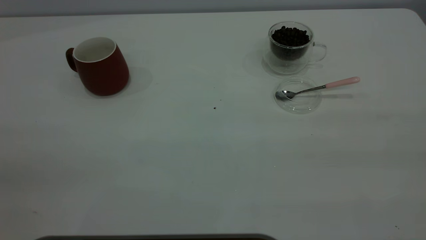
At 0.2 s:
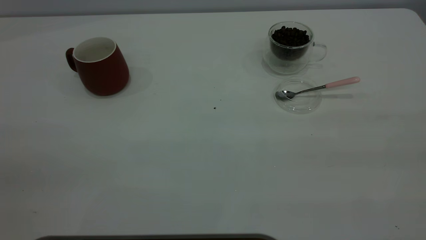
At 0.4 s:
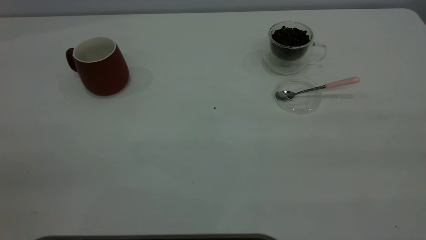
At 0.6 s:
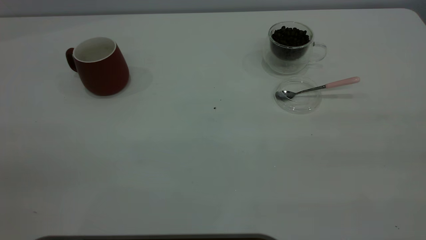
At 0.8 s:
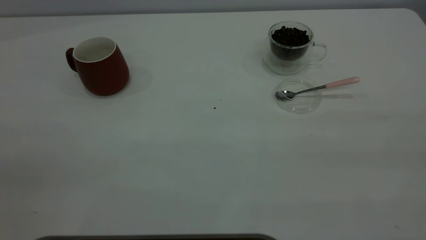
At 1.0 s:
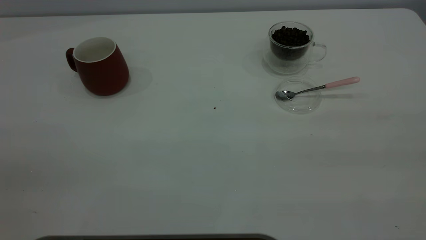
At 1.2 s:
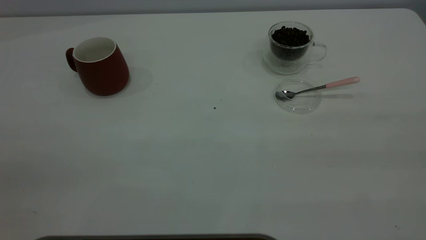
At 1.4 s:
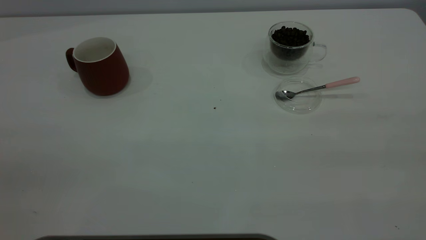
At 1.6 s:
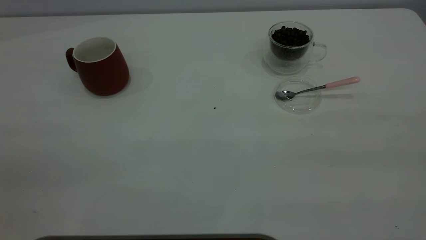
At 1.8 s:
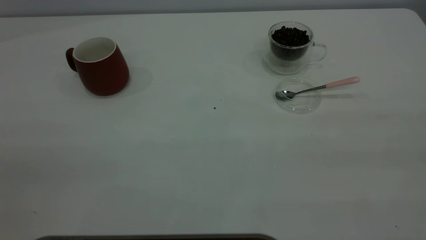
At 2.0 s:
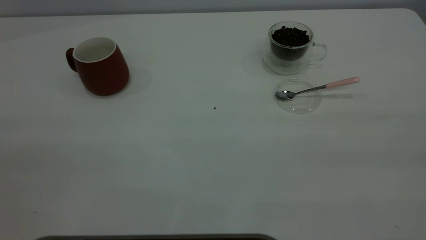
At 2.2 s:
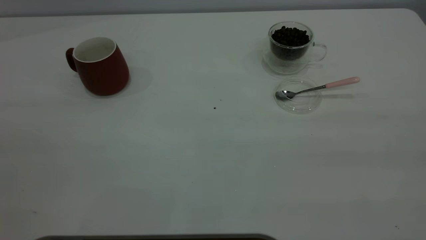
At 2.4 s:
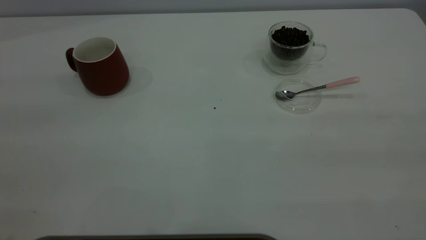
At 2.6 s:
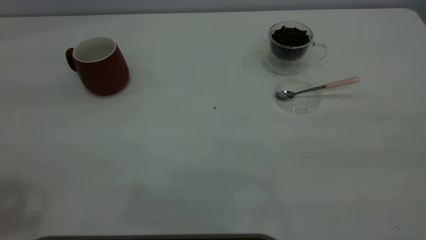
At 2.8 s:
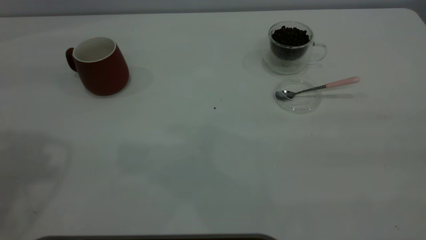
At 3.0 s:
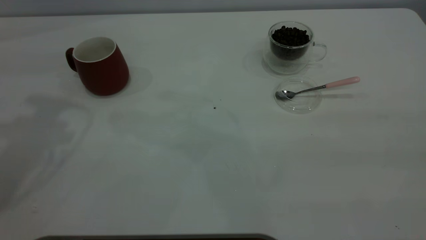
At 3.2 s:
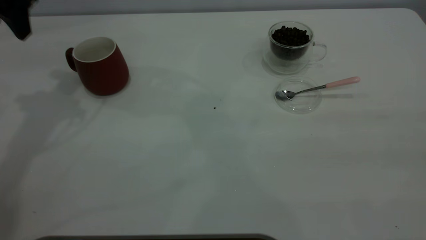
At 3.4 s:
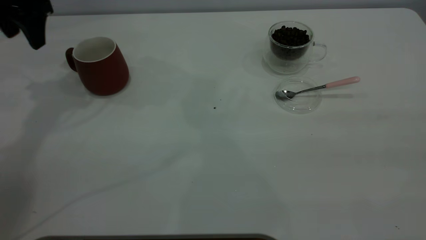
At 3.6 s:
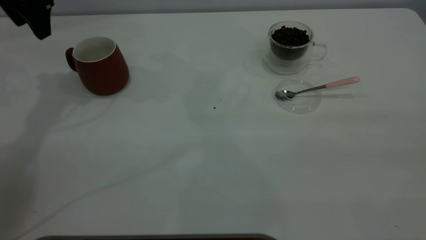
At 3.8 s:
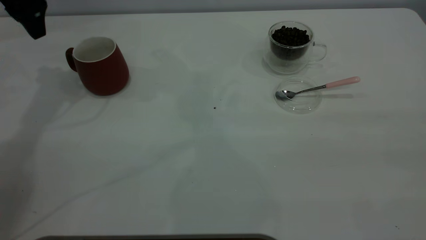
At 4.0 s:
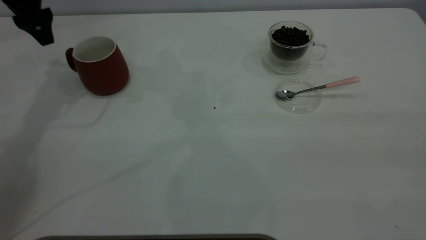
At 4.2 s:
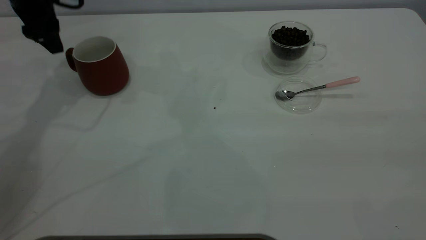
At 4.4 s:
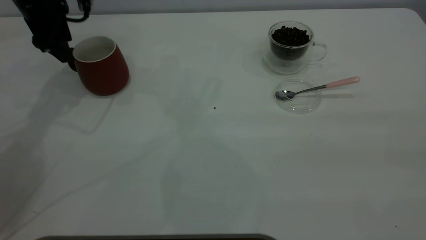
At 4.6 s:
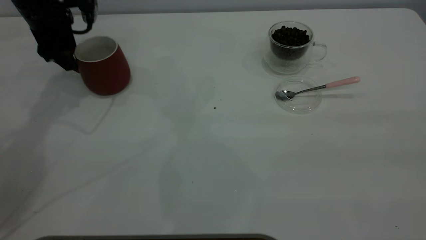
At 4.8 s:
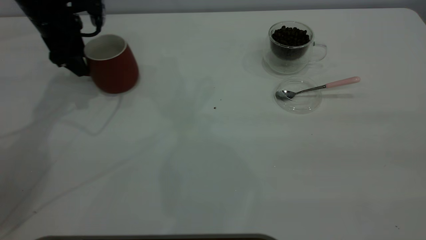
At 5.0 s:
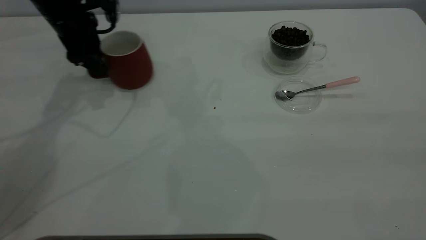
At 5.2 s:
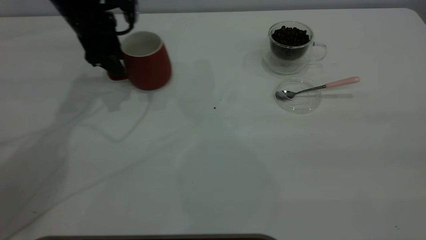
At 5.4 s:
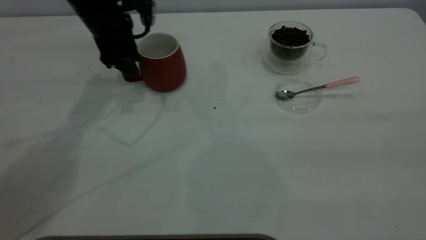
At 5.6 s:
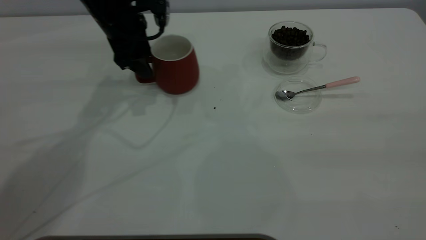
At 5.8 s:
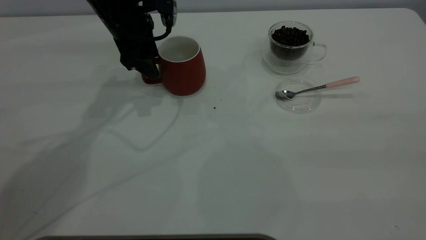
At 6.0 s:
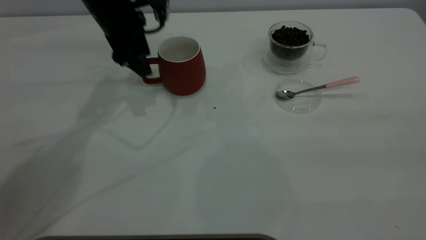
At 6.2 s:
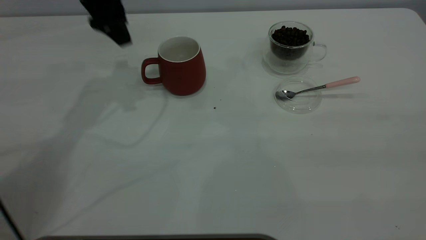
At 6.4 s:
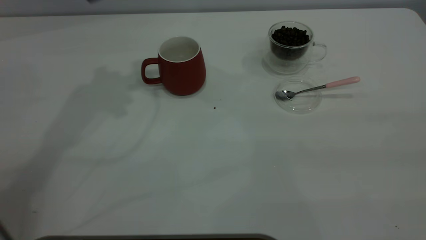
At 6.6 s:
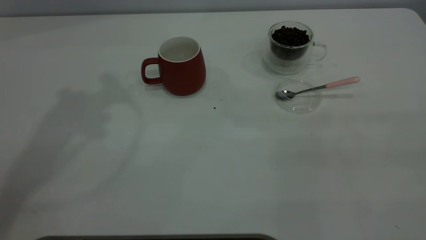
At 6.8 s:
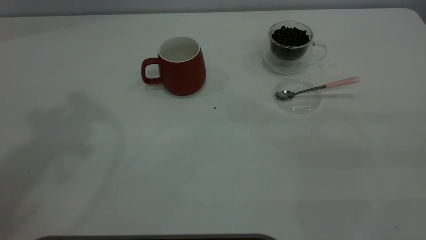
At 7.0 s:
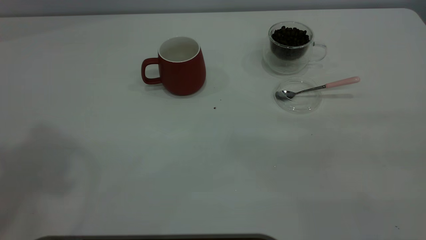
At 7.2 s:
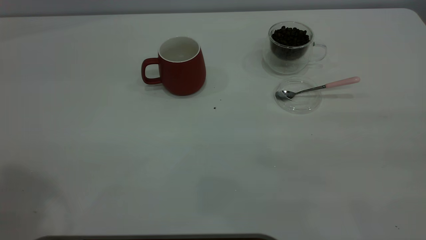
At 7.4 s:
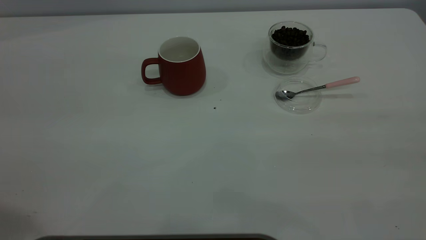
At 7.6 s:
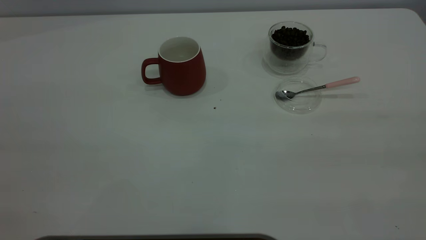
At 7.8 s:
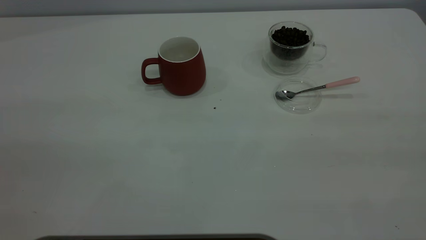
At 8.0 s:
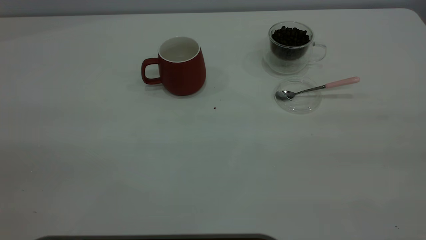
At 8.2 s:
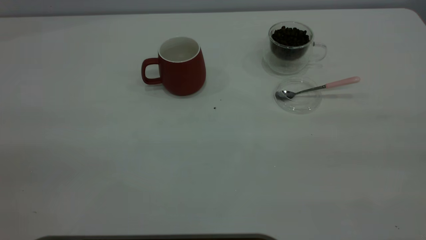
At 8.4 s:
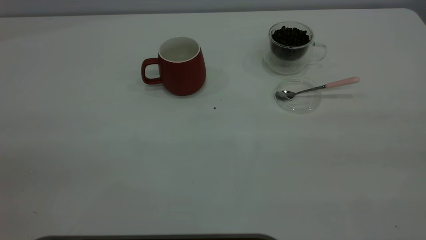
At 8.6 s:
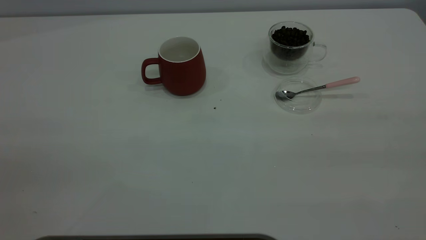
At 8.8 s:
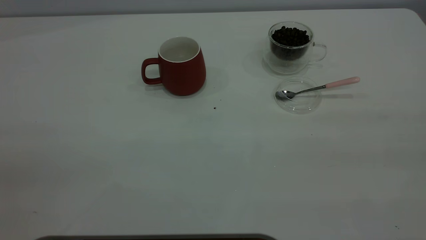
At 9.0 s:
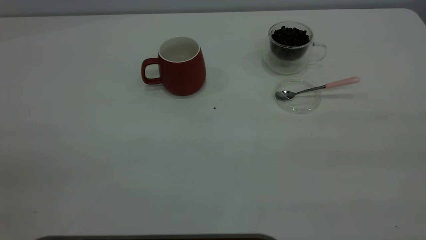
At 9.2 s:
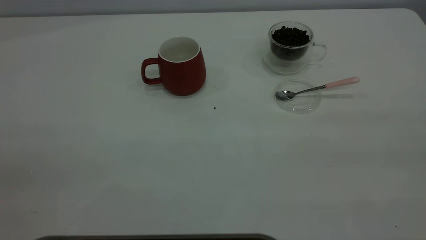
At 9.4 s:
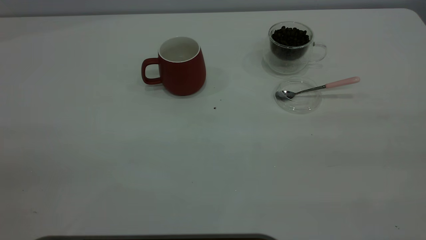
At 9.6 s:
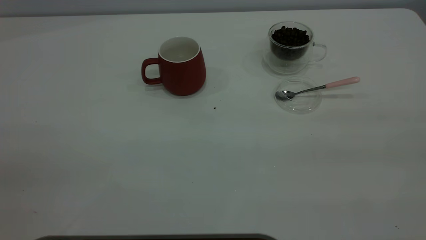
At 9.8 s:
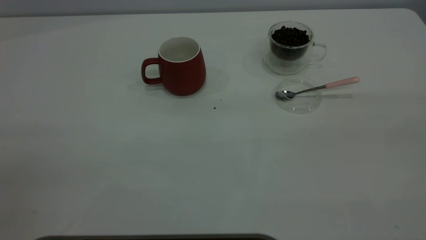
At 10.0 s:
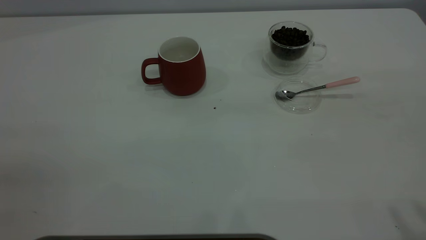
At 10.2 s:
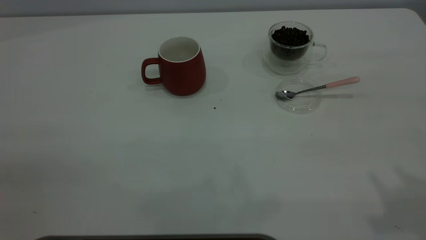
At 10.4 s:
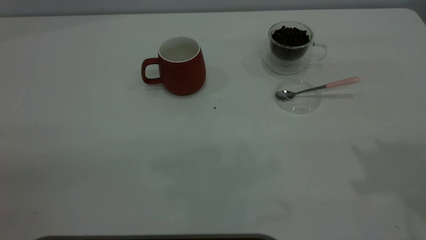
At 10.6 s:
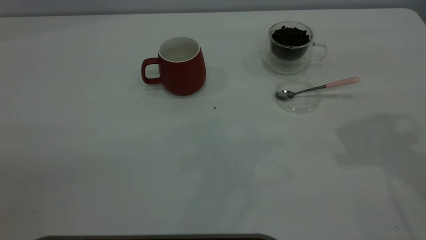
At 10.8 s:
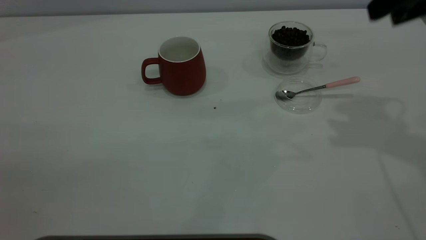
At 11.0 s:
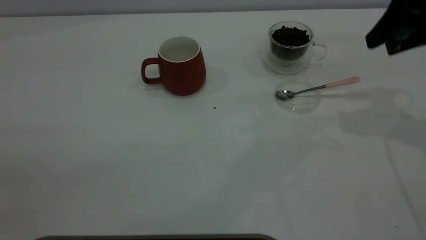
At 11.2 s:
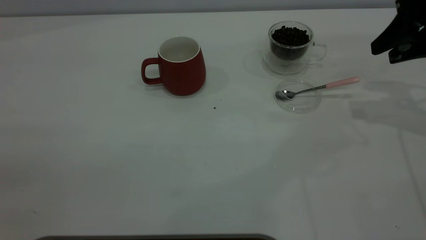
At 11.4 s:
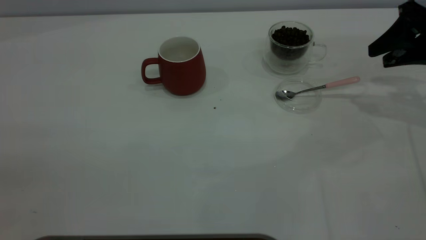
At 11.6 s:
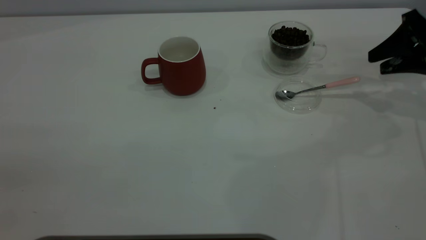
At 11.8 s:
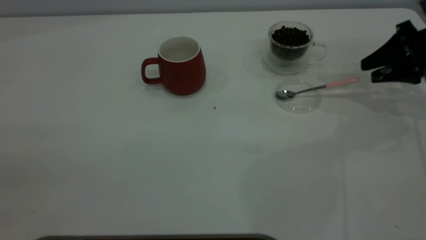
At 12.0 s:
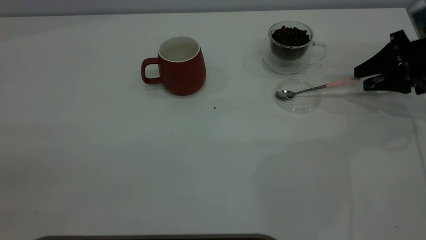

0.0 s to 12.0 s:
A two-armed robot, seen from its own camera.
Task of the whole recording: the left gripper place the red cup in the center of the table, the right gripper take the pink spoon from the cup lid and scoop out the coffee beans from the coffee cup and put them into the red cup, the right gripper put the spoon back into the cup lid.
Step, 0.0 to 6.0 s: Move the cup to the center of view.
0.0 to 1.6 s: Both grippers stay about where they are.
3.0 to 4.4 s: The left gripper travels forward and downward by some 20 cm.
4.4 to 6.0 s: The left gripper is displaced to the right by roughly 10 cm.
6.0 to 7.6 s: The left gripper is displaced backward and upward by approximately 40 cm.
10.4 to 12.0 s: The right gripper heads downward and forward, covering about 30 cm.

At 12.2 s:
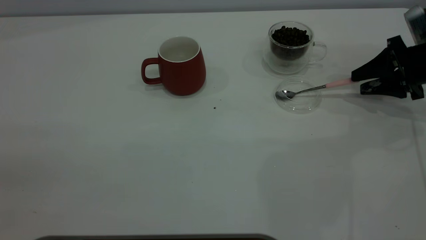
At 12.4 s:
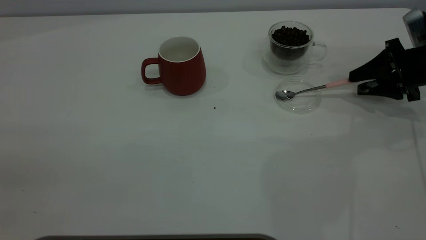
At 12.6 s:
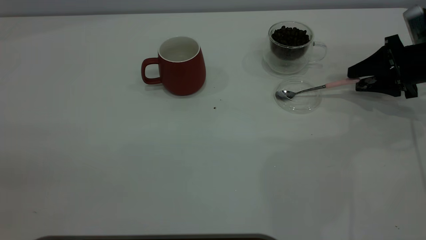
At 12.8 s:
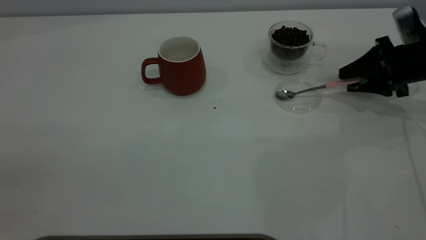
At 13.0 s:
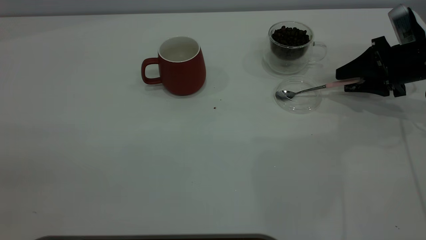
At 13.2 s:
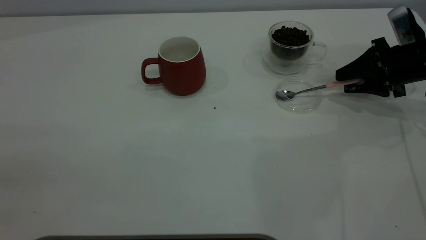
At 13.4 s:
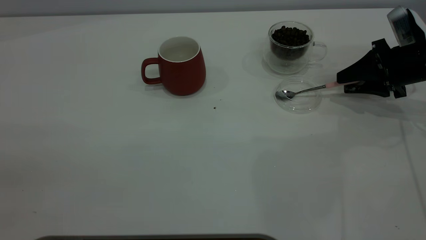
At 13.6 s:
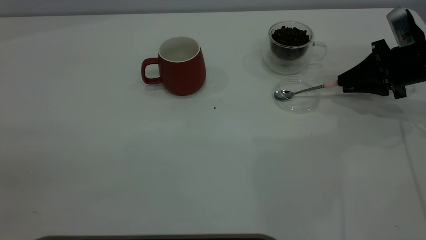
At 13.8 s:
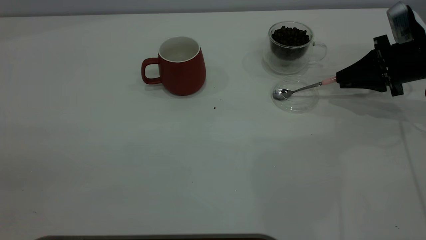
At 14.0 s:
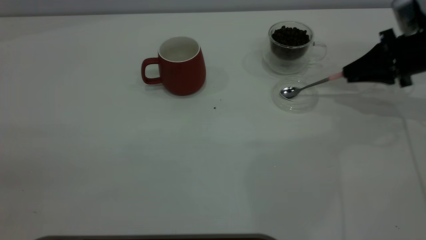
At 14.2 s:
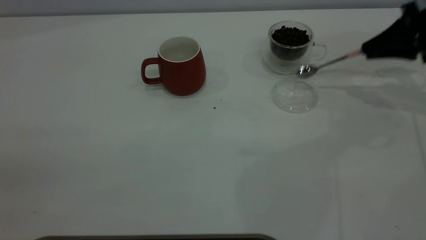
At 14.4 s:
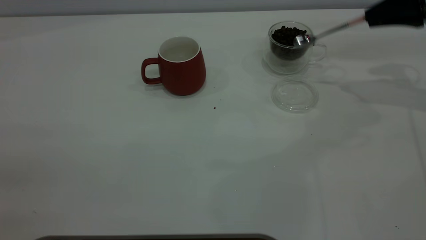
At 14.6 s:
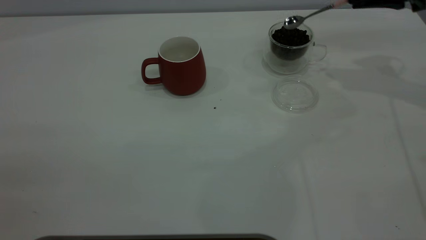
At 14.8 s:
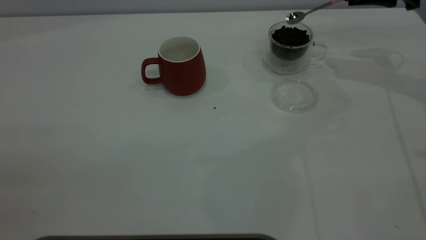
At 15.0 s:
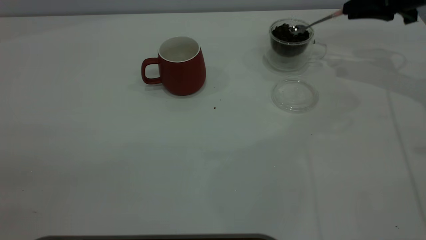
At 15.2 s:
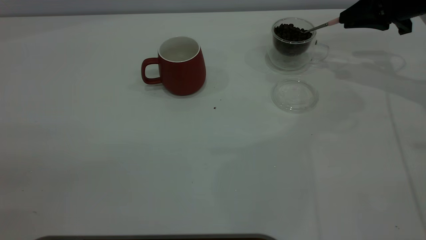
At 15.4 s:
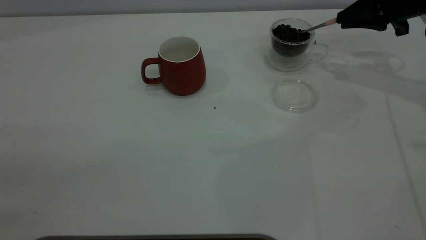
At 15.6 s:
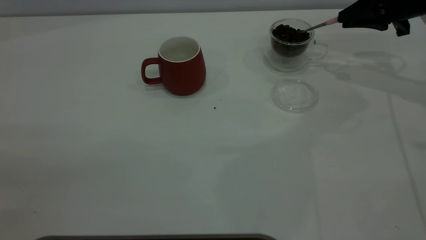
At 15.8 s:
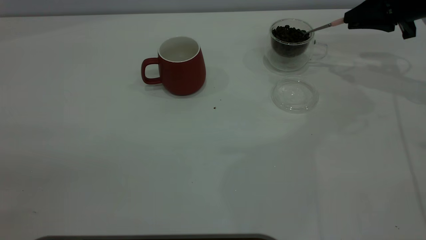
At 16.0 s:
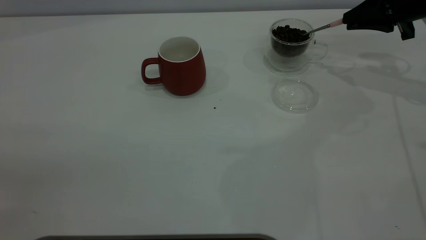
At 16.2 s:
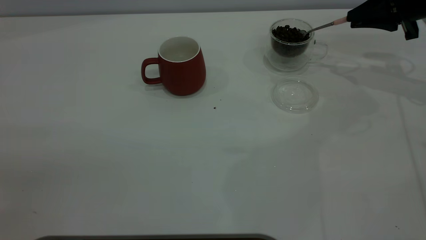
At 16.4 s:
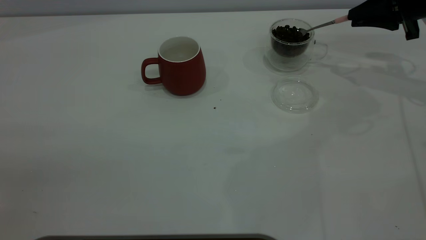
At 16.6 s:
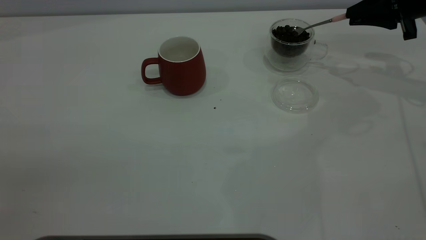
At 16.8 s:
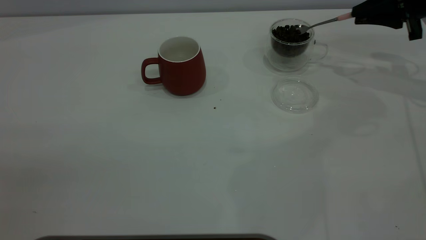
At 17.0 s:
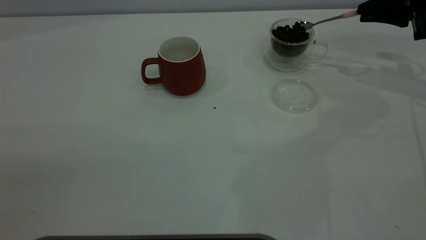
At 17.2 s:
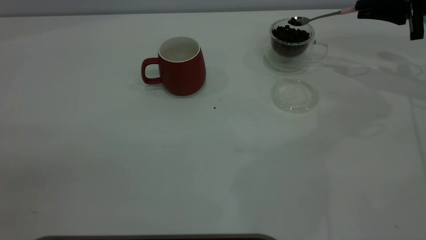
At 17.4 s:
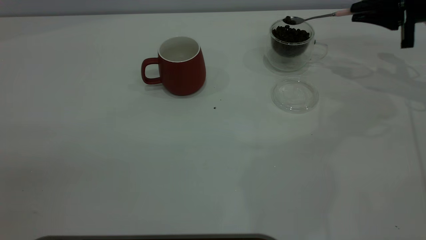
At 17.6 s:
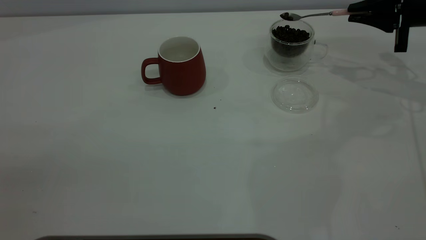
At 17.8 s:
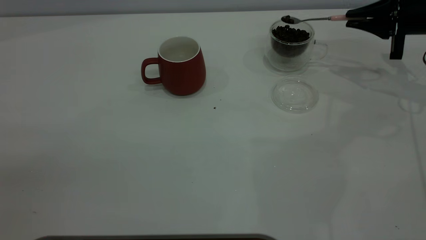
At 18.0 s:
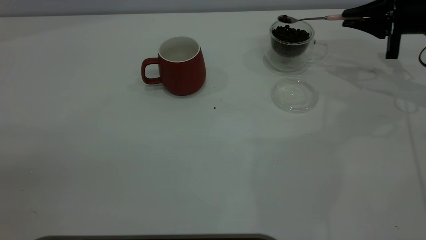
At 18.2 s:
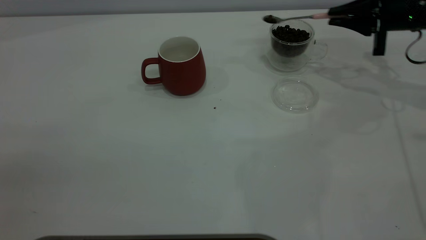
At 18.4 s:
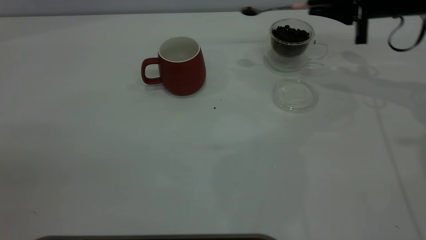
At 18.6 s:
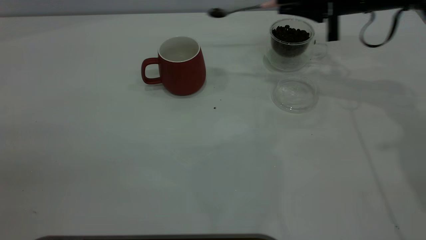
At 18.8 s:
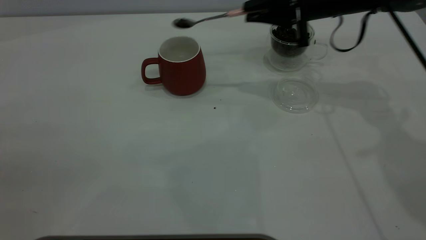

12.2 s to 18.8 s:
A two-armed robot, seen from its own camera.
Task of the whole recording: the left gripper place the red cup in the center of the table, the right gripper take the pink spoon from the cup lid and scoop out the coffee beans from the coffee cup and put them into the red cup, the right gripper put the spoon back into the cup lid.
12.2 to 13.8 s: The right gripper closes up.
13.8 to 15.4 s: The right gripper moves upward and forward, some 10 cm.
17.2 to 18.8 s: The right gripper heads to the left, covering roughly 20 cm.
